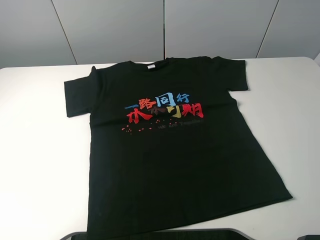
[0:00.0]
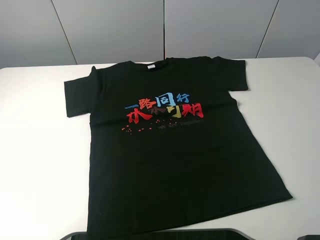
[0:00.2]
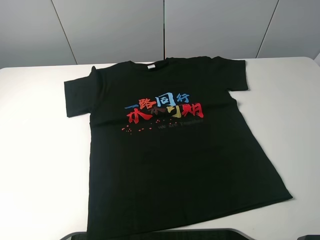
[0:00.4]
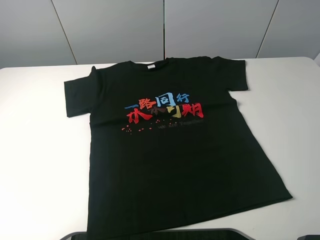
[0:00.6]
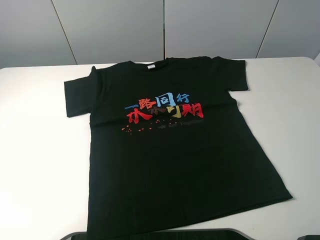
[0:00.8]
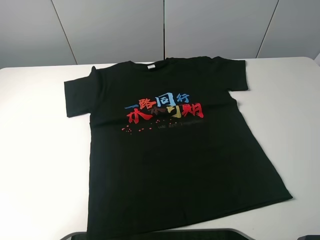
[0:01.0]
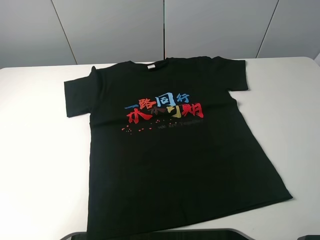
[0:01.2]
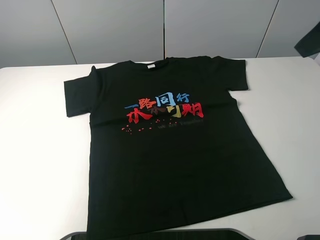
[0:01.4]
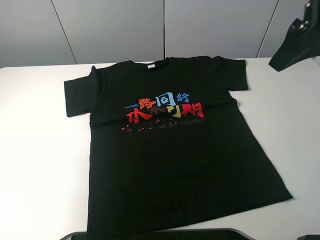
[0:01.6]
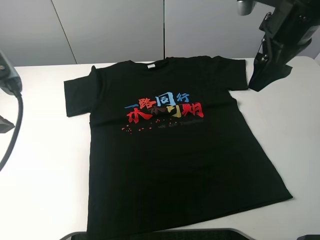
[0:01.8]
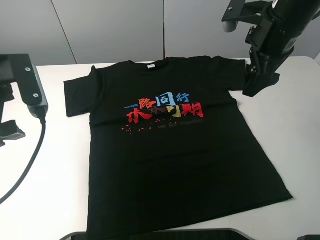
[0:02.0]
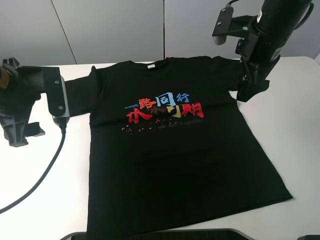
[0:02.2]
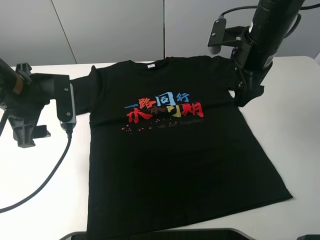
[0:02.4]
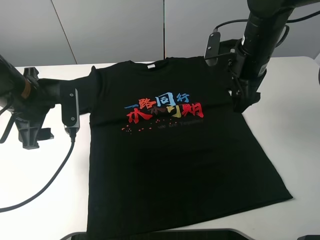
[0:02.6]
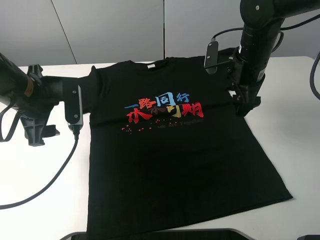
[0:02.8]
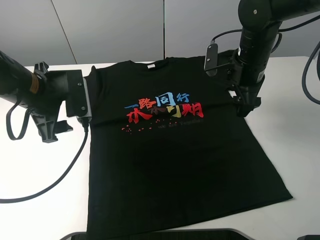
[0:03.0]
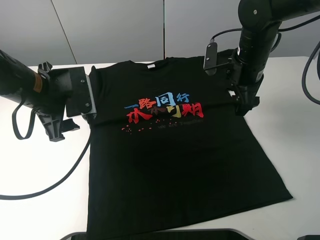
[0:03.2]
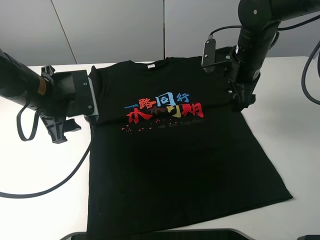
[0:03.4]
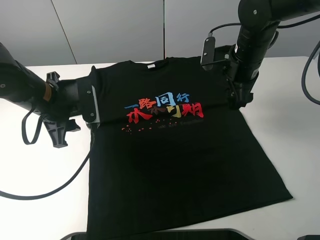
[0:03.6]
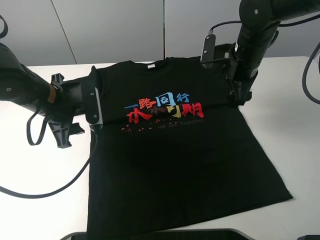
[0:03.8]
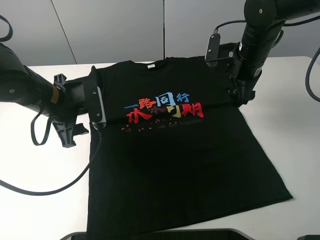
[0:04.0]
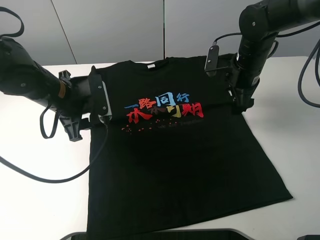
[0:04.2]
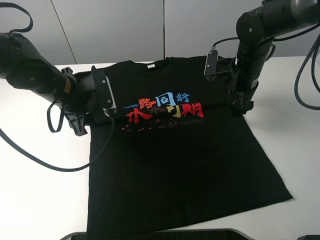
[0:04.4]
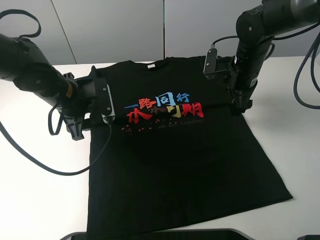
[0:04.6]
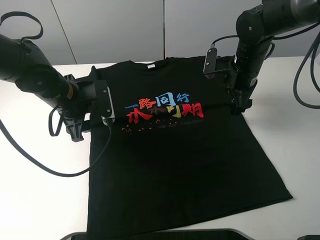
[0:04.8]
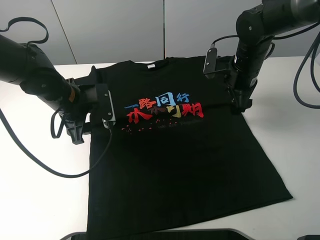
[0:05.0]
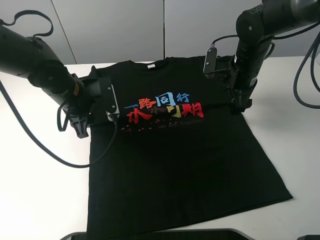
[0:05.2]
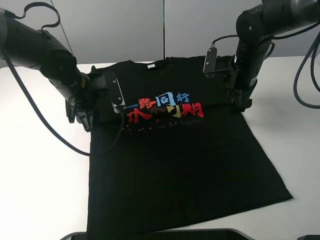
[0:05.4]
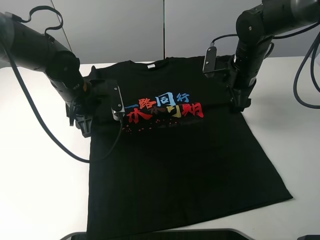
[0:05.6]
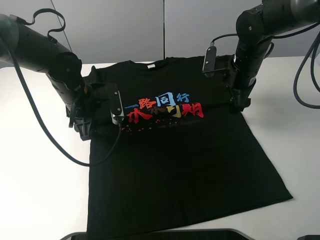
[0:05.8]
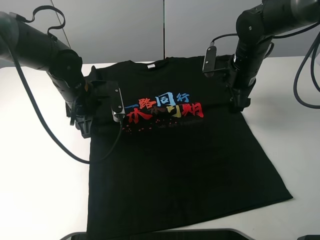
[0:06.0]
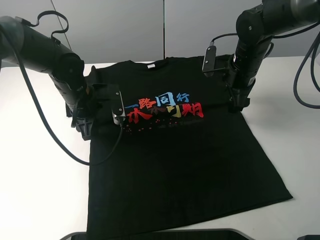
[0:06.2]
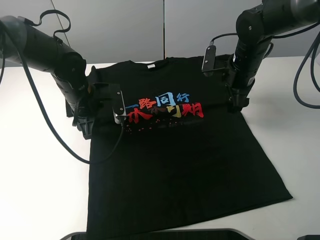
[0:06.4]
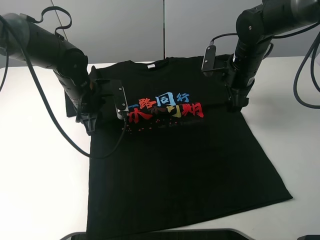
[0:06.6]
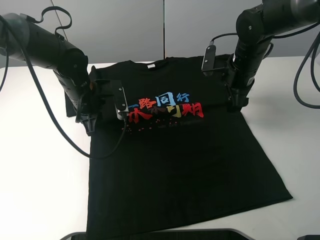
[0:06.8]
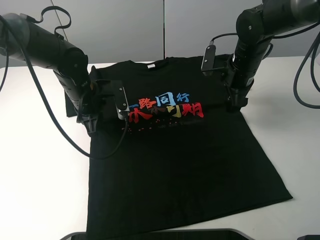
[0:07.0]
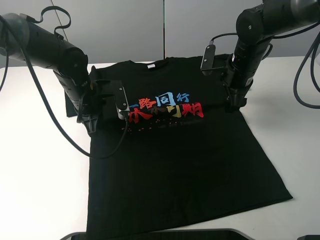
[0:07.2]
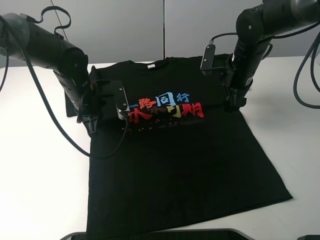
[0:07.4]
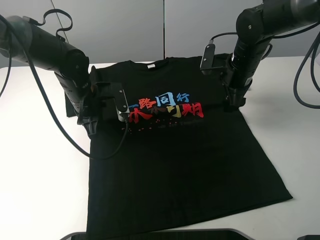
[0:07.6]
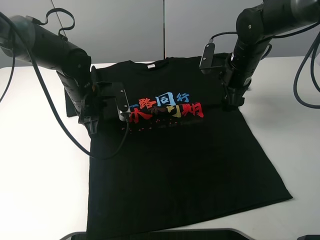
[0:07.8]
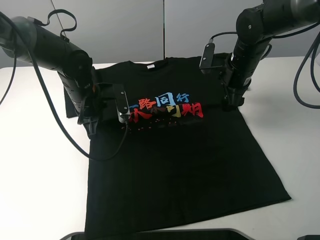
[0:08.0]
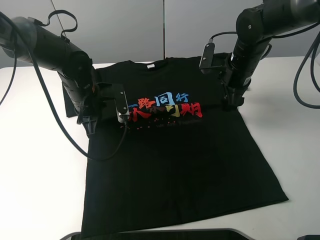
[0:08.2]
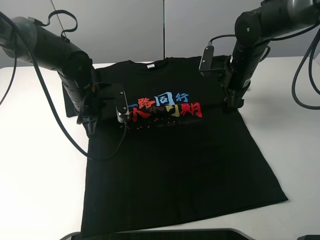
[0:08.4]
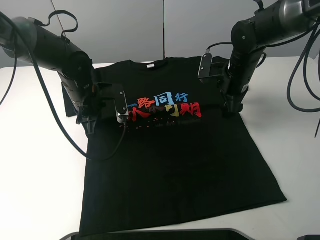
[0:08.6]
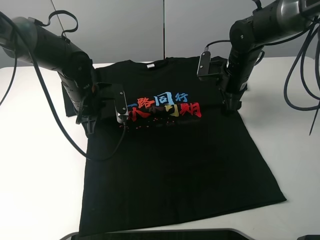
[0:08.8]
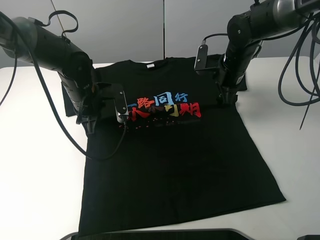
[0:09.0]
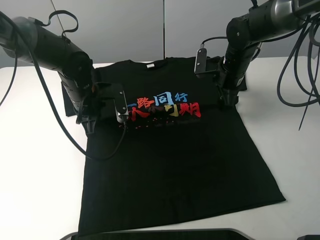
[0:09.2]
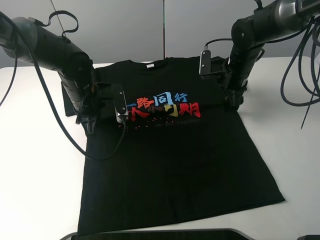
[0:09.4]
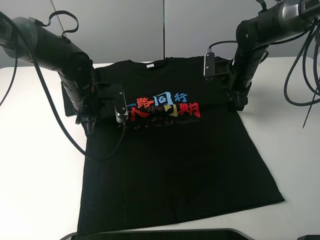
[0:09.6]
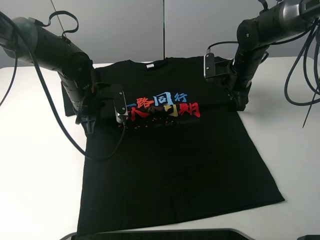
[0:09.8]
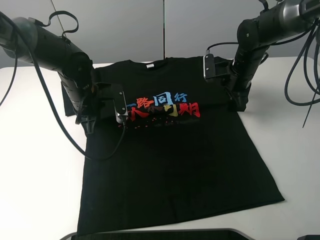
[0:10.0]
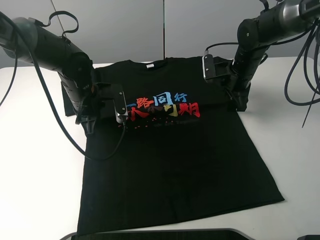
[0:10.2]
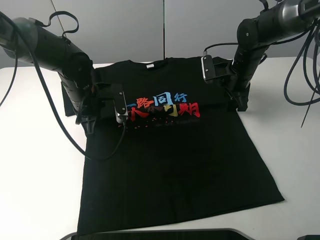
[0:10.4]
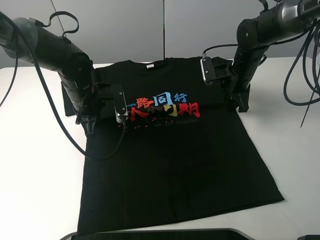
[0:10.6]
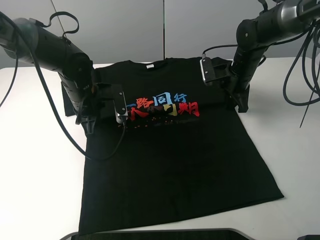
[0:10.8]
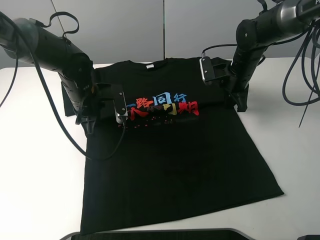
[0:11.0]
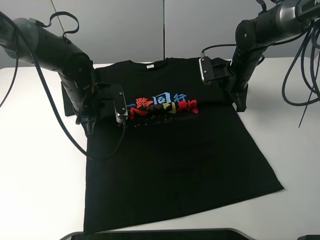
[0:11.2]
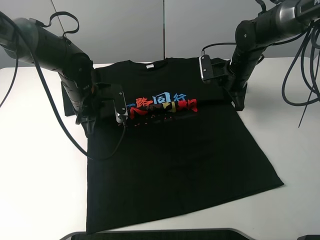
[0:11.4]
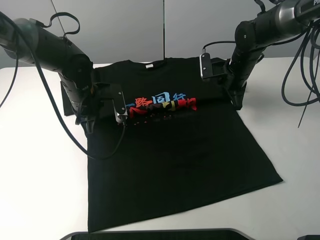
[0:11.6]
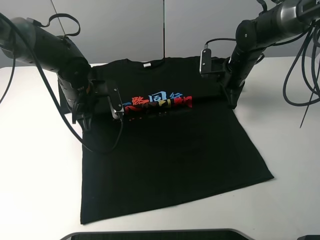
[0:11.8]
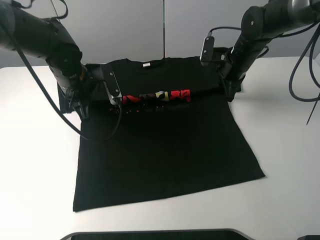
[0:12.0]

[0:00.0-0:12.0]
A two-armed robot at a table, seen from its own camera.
Task of the whole recording: fold the clothes on the table.
Step, 0:00.0 to 0:07.0: Lift the black T-shirt with the left gripper.
0:00.0 to 0:01.6: The right gripper heads forward, covering roughly 25 cm.
0:01.6 to 0:03.0: The right gripper heads downward and forward, covering approximately 20 cm. Meanwhile the left gripper moves downward, forward and to the right, approximately 20 cm.
0:03.0 to 0:04.4: The left gripper moves about 5 cm.
0:04.4 to 0:06.0: The grippers stay close to where they were, moving slightly.
0:06.0 to 0:07.6: The left gripper closes.
0:07.6 to 0:10.4: The grippers move only a little.
0:10.4 to 0:12.0: The right gripper closes its fingers. The left gripper shifts roughly 5 cm upward.

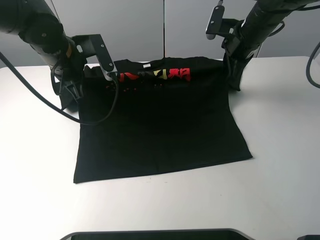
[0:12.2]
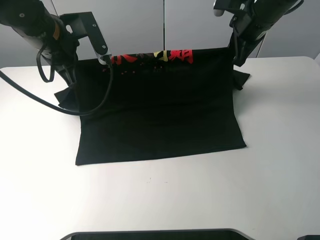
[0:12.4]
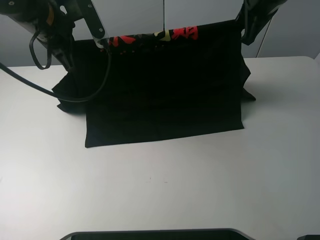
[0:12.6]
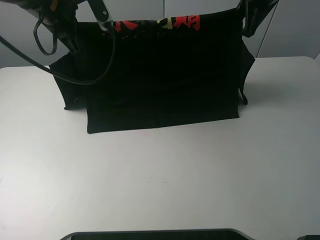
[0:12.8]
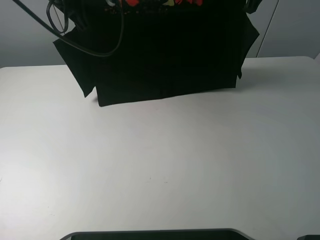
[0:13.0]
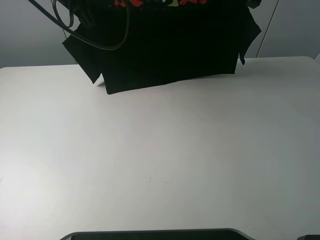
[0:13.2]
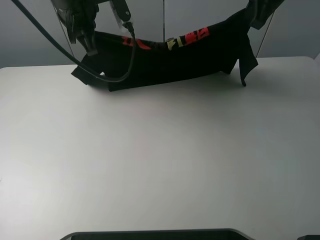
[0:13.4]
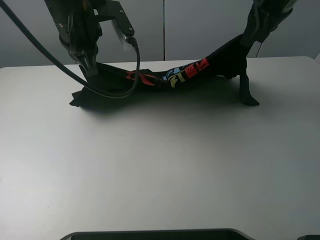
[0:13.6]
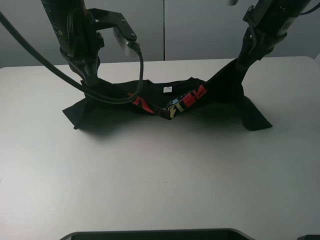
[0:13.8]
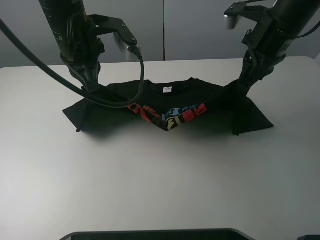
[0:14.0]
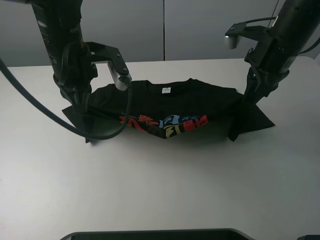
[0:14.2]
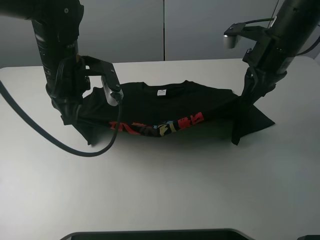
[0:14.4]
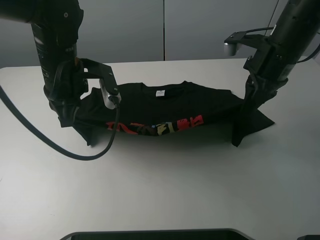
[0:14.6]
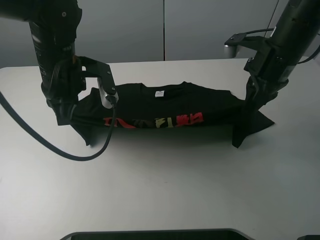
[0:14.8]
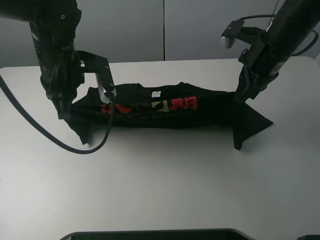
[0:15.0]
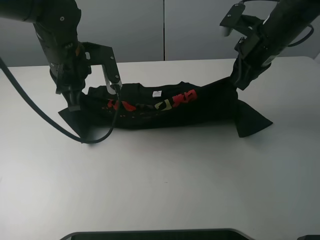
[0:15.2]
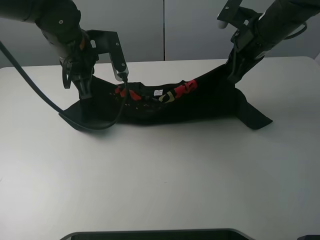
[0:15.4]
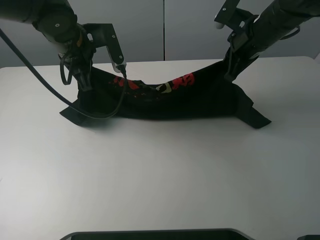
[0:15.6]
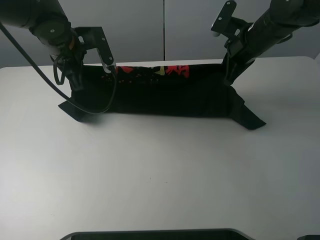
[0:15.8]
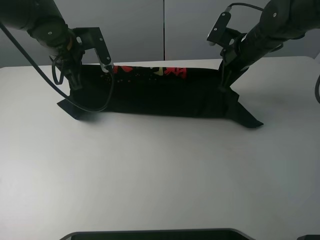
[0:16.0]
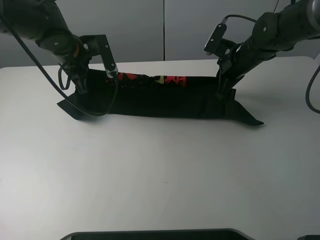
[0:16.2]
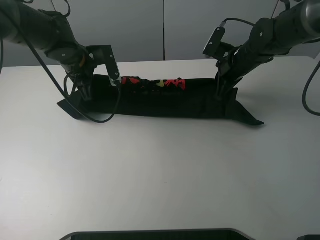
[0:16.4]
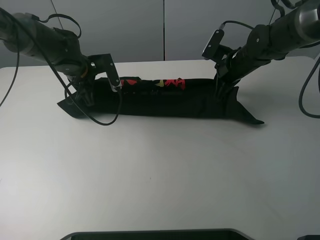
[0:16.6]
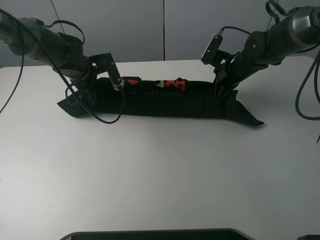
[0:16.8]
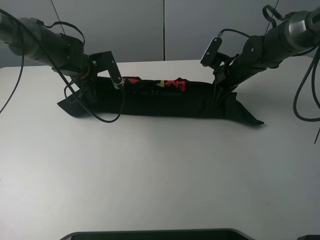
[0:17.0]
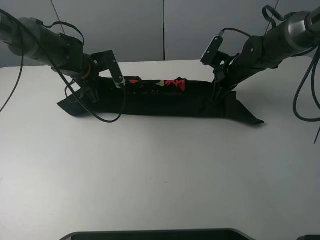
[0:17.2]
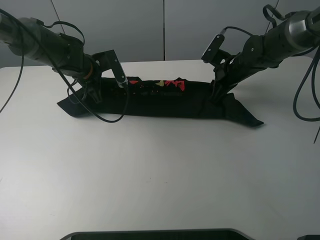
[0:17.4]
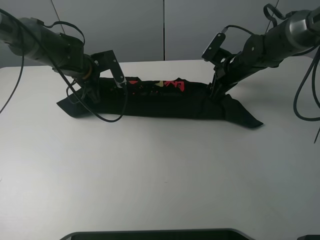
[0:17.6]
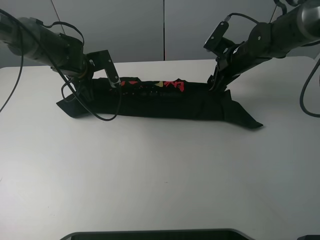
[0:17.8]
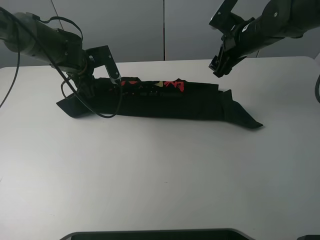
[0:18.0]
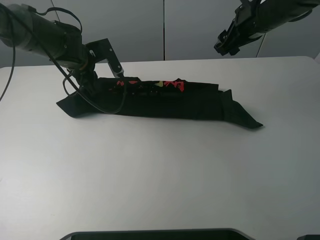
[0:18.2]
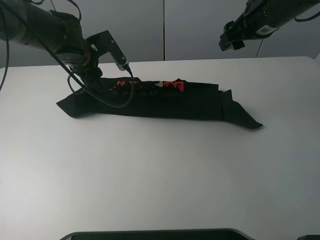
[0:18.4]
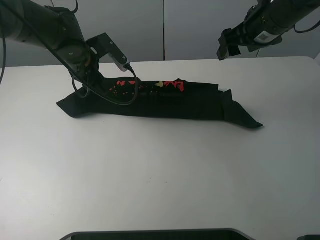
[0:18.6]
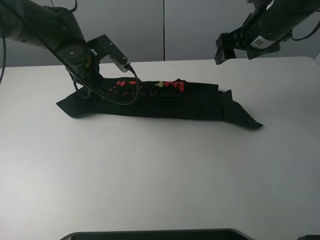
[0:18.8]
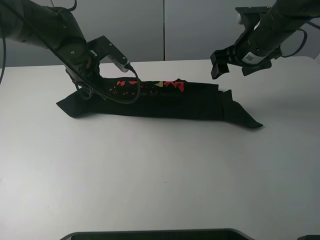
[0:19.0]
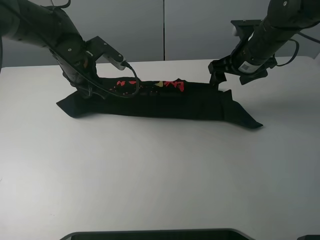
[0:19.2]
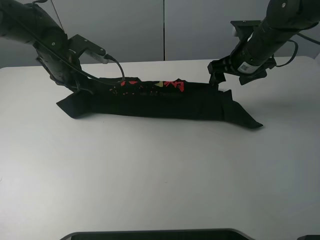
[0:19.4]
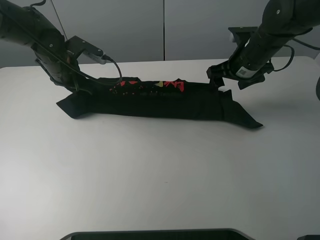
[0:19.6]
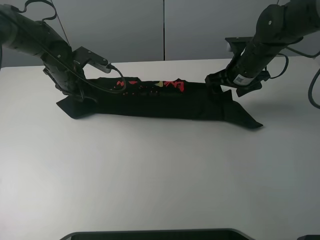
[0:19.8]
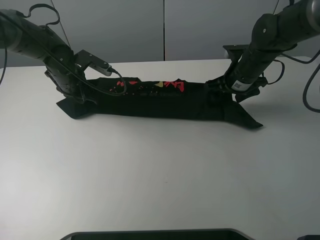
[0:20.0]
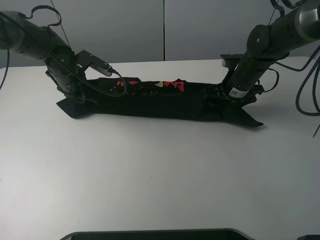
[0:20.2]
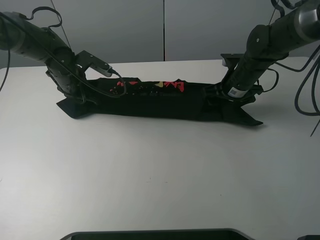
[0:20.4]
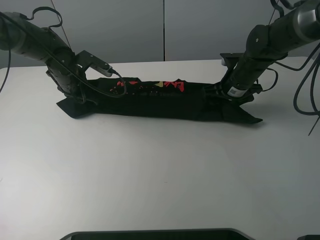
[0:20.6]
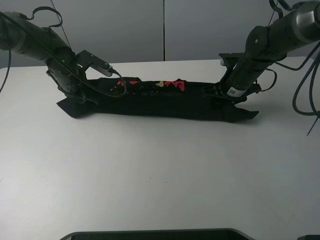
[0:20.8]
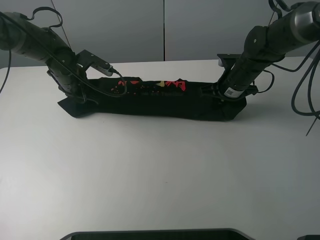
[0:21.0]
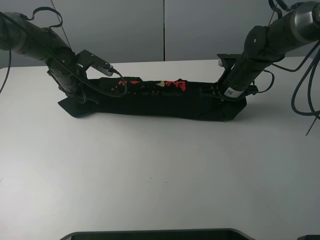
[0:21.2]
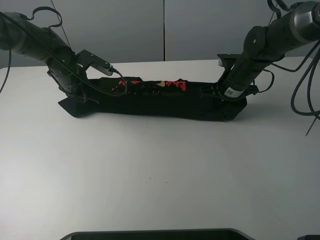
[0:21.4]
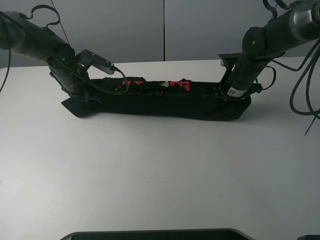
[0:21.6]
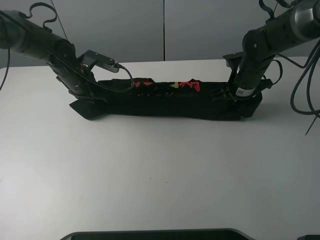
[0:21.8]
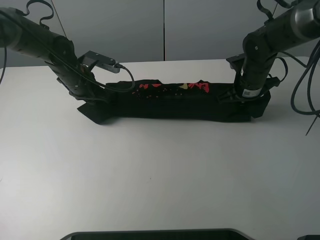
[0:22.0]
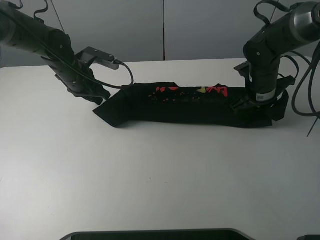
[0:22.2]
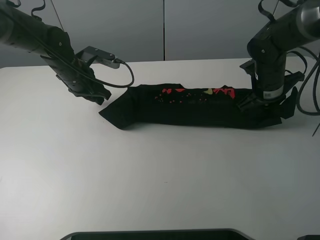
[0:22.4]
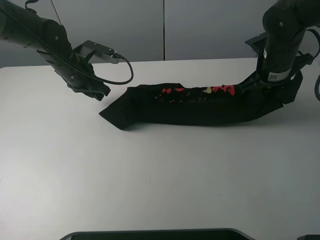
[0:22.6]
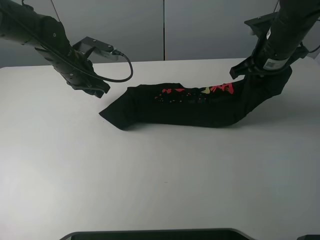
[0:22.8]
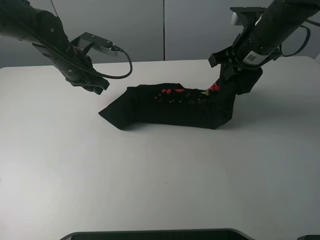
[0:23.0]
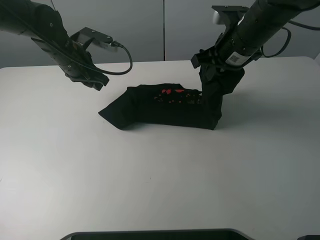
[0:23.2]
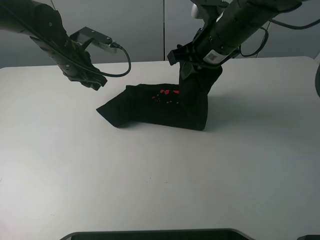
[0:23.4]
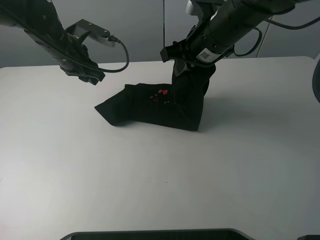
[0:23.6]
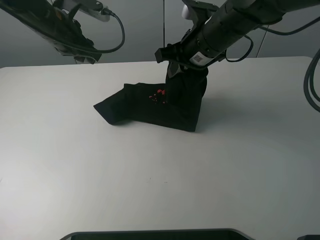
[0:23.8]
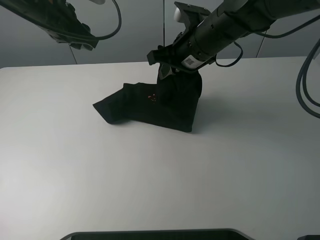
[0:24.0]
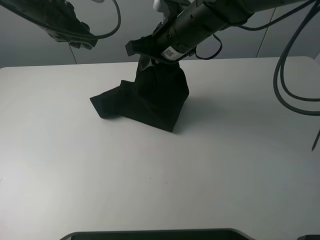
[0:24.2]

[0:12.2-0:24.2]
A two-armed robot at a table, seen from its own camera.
Task of the whole recording: fold the clothes on the table.
Step, 0:12.2 to 0:18.0: Fold the black T-shirt downward with the left gripper.
Step, 0:18.4 to 0:21.0: Grasp the black T-shirt with the right gripper.
0:12.2 to 0:13.8: The right gripper is displaced upward and backward by roughly 10 cm, while the left gripper moves to the right and upward, roughly 10 cm.
0:13.8 to 0:15.2: The grippers both shift downward by some 5 cm.
0:15.2 to 0:16.6: Both grippers move downward and forward, some 15 cm.
0:16.6 to 0:18.2: The right gripper shifts some 15 cm upward, and opens up. Meanwhile the left gripper opens.
0:18.2 to 0:19.8: The right gripper heads downward, covering some 10 cm; the left gripper ends up about 5 cm from where it was.
0:19.8 to 0:21.2: The right gripper closes.
0:21.2 to 0:22.6: The right gripper goes about 10 cm upward.
0:22.6 to 0:24.2: The left gripper shifts approximately 10 cm upward. The right gripper moves to the left, some 20 cm.
